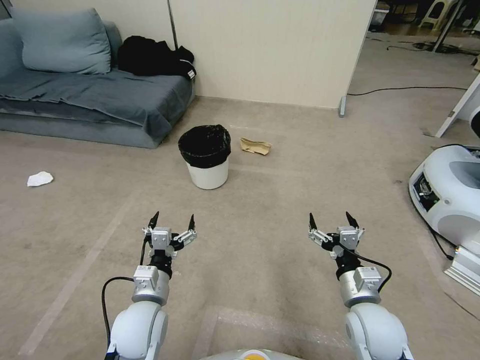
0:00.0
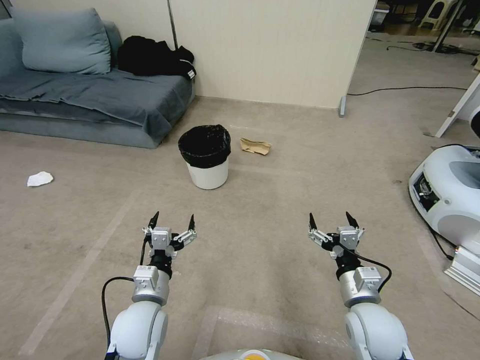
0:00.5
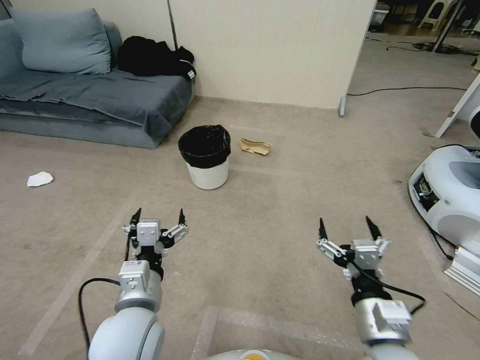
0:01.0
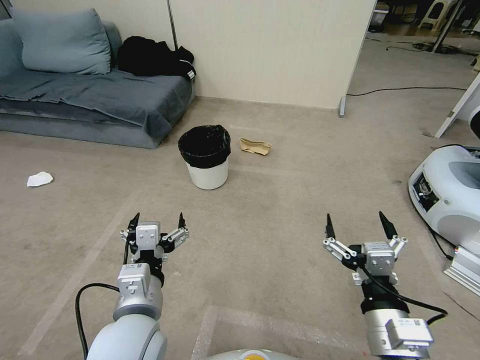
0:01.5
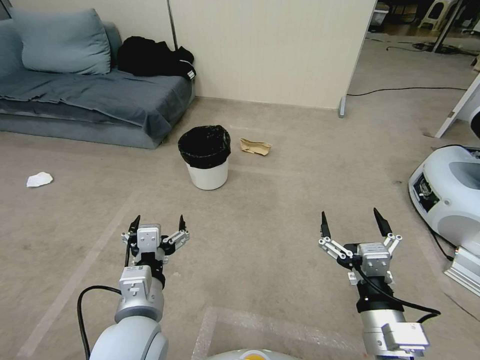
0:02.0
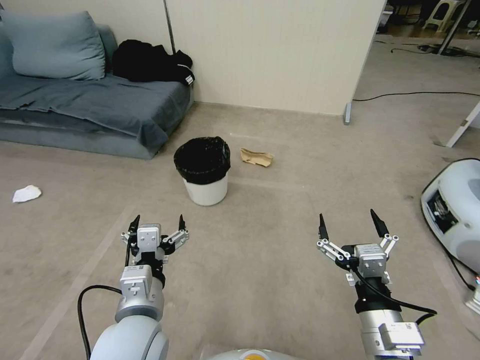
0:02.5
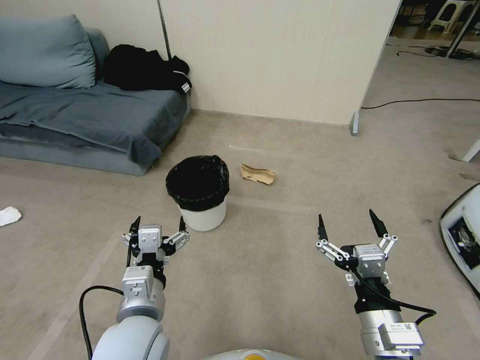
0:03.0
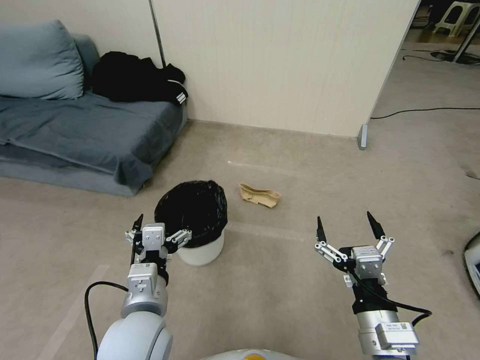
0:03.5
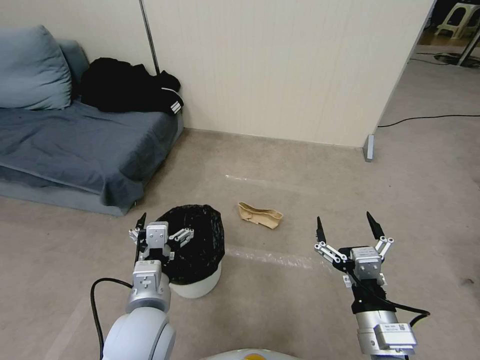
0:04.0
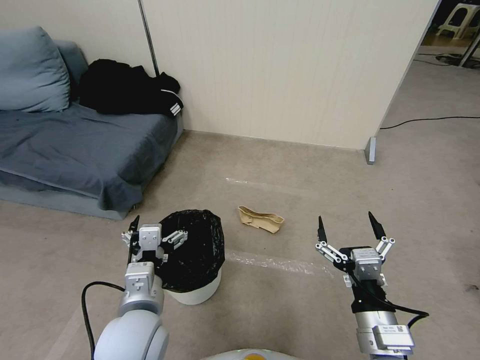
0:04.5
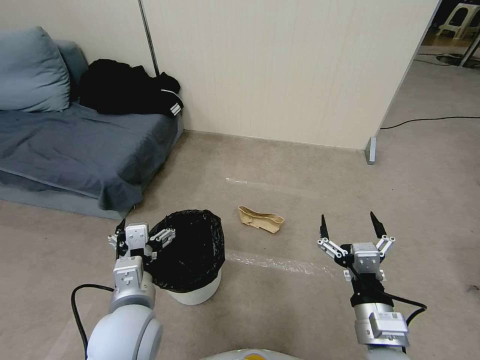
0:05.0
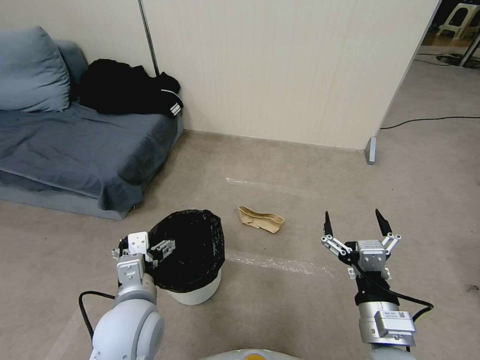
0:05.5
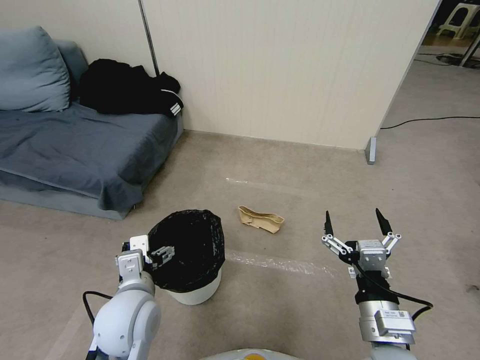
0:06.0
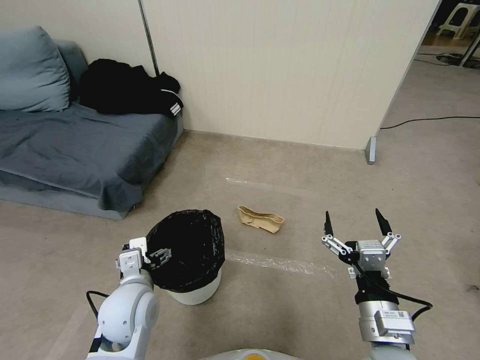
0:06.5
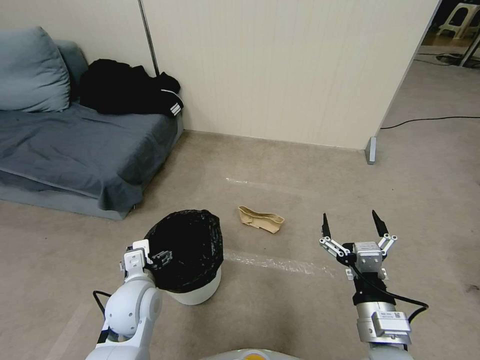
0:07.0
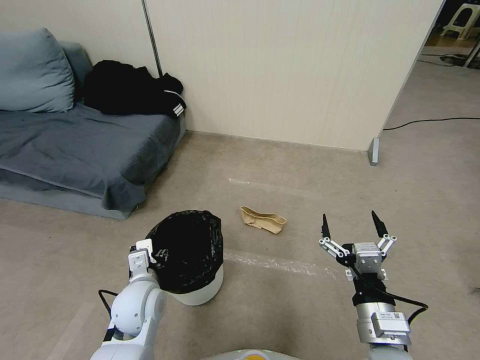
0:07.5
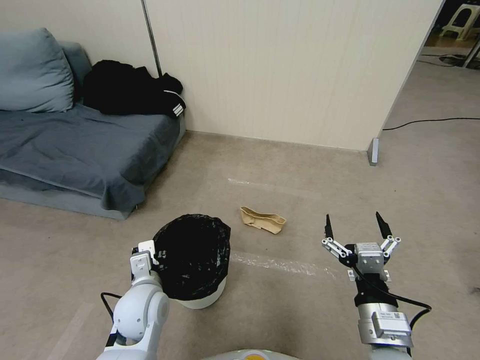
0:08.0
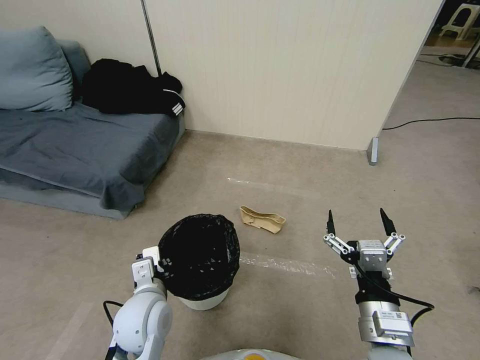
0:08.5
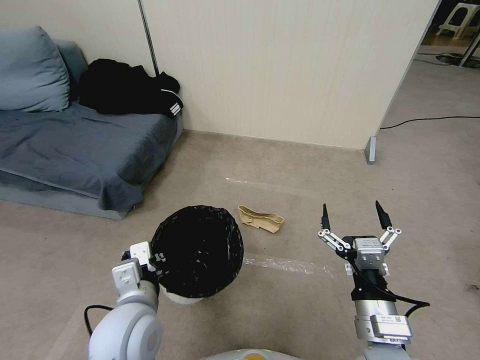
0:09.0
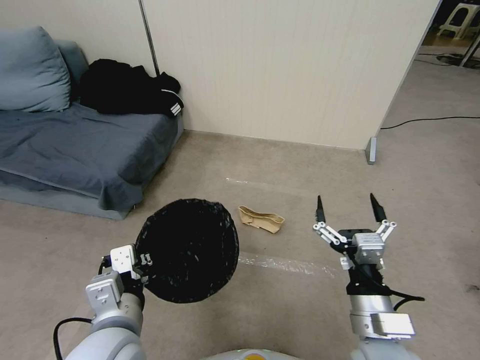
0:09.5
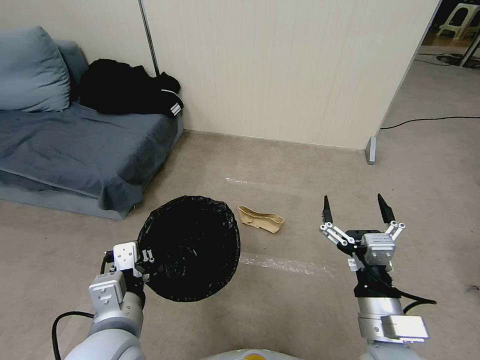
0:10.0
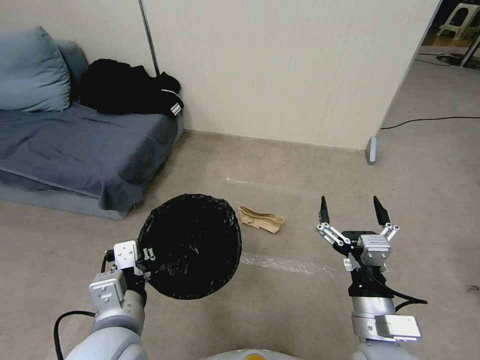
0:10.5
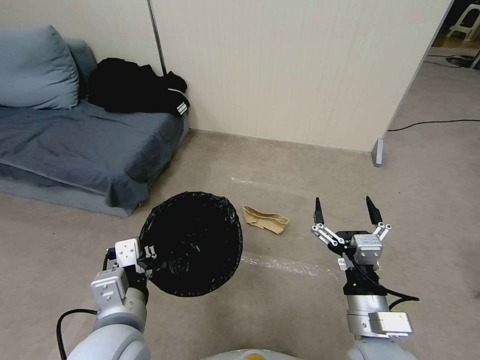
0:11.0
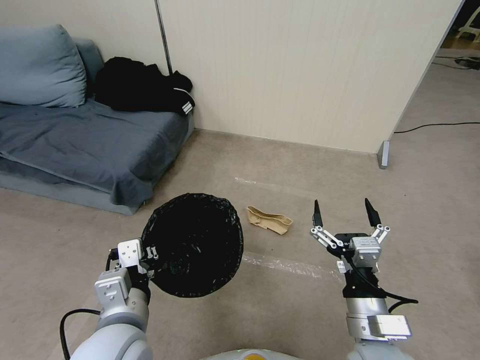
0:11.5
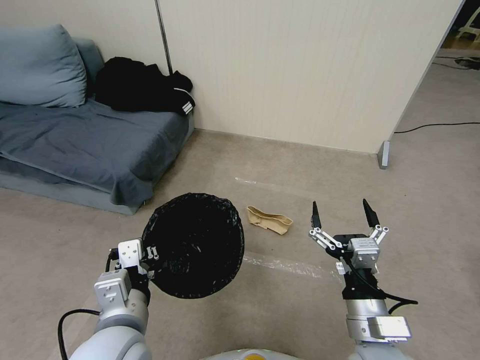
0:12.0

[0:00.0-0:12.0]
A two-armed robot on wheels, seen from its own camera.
Task of the whole recording: Pick up the trash bin, then pick up the garbage from the floor and place it into the trash bin.
0:04.0 to 0:06.0: The left gripper ends up about 5 cm from where it was.
0:06.0 to 0:08.0: The left gripper heads downward, covering approximately 5 cm, and closes up.
0:08.0 to 0:10.0: The left gripper moves upward and backward, approximately 15 cm.
0:10.0 to 0:12.0: There are only small adjustments of the grippers.

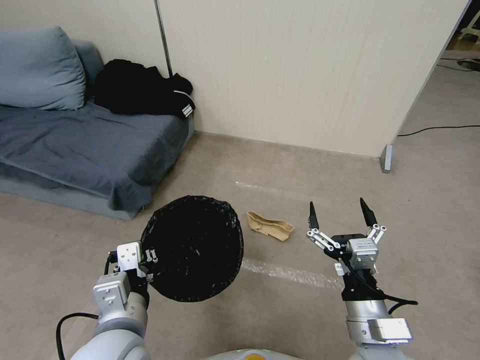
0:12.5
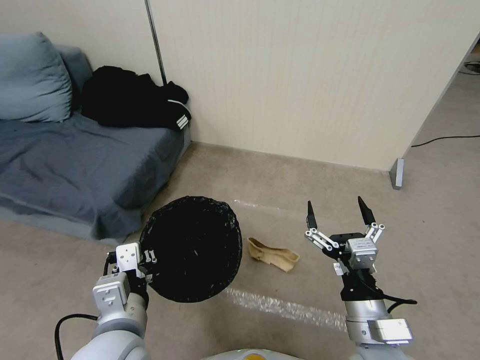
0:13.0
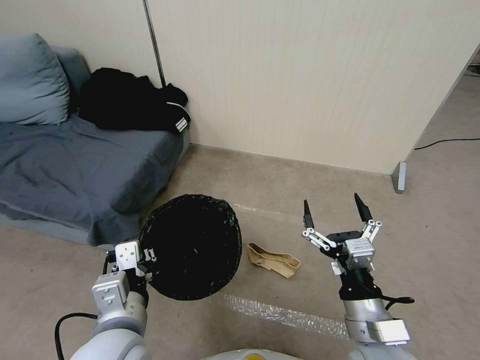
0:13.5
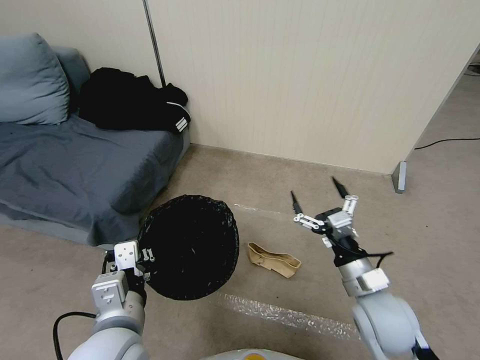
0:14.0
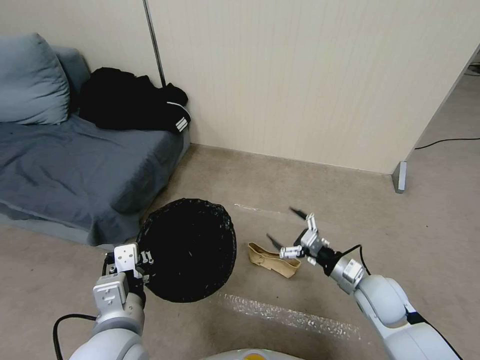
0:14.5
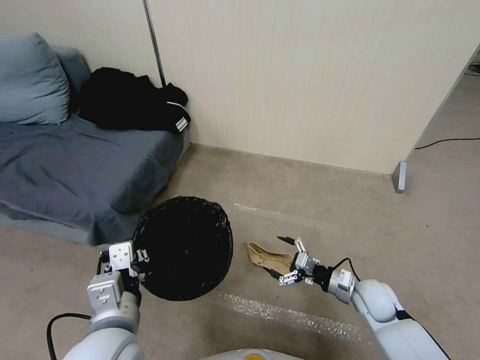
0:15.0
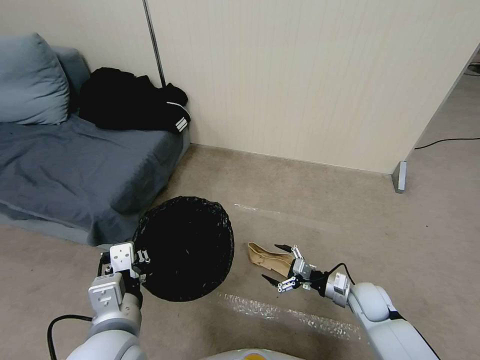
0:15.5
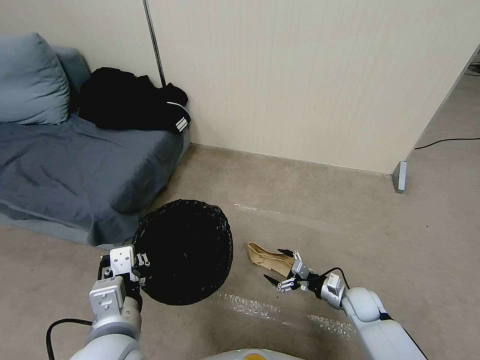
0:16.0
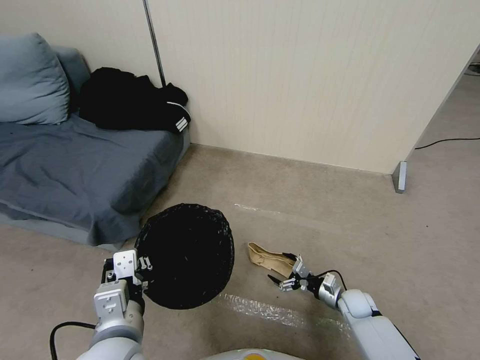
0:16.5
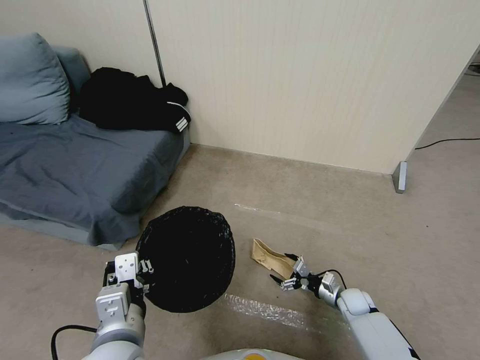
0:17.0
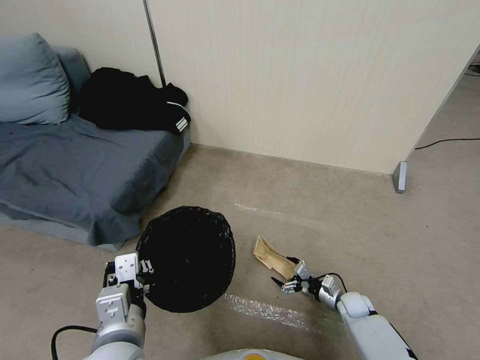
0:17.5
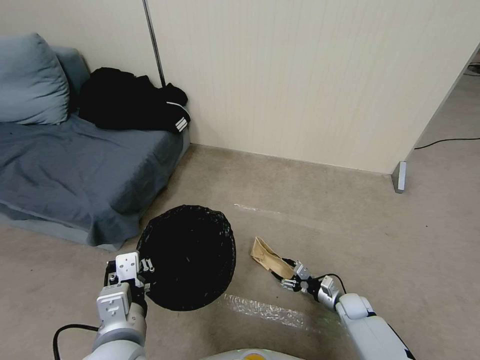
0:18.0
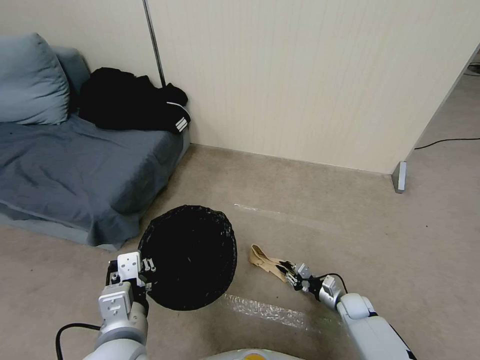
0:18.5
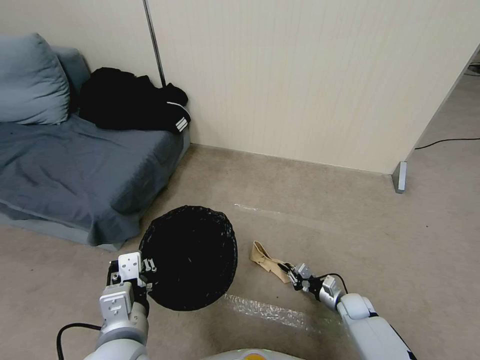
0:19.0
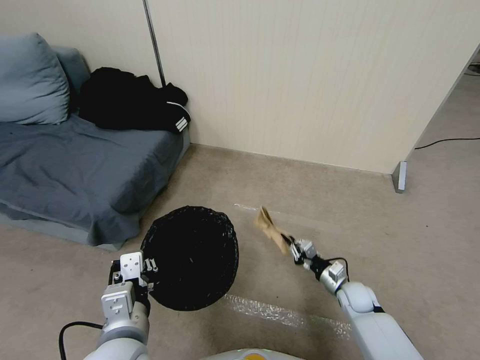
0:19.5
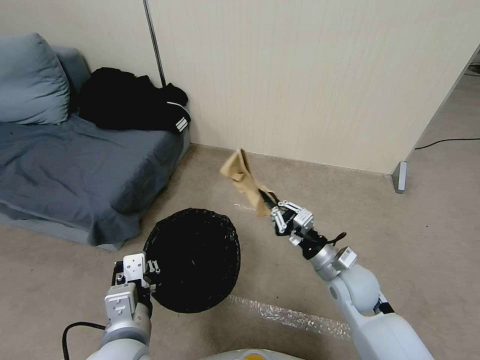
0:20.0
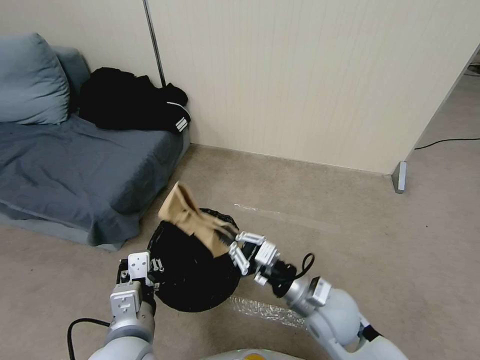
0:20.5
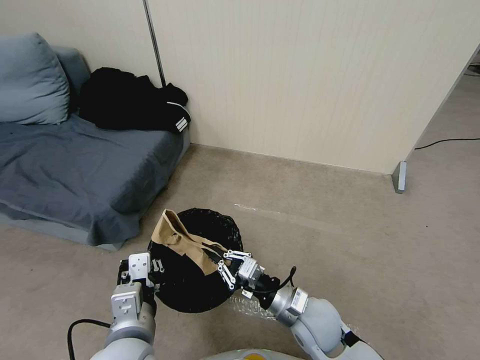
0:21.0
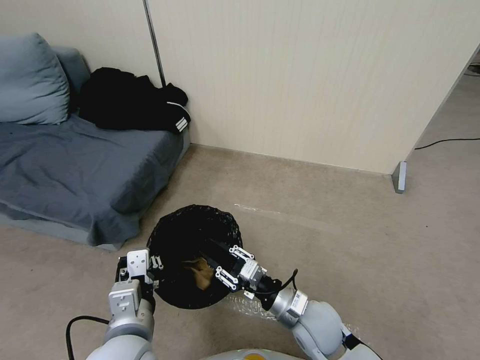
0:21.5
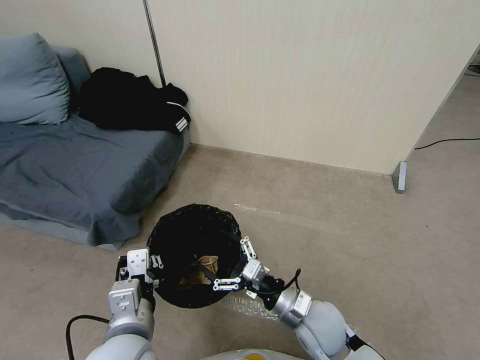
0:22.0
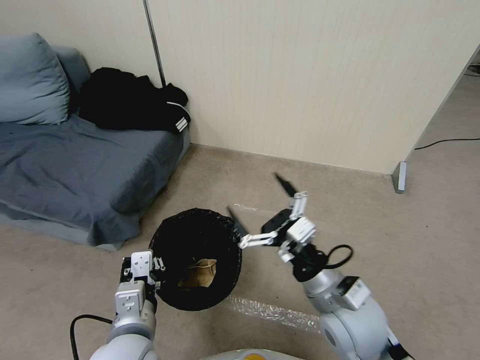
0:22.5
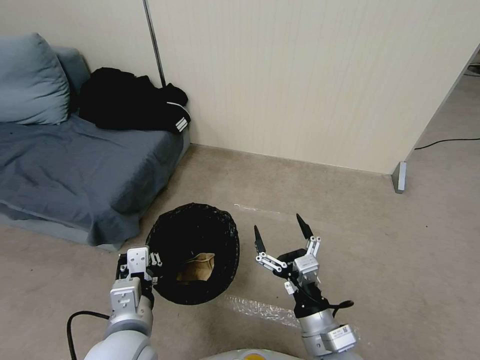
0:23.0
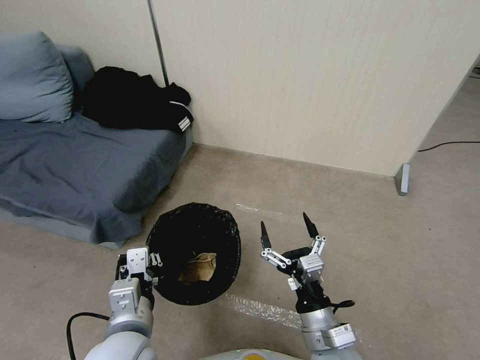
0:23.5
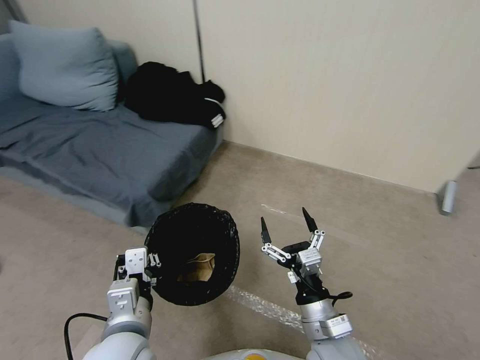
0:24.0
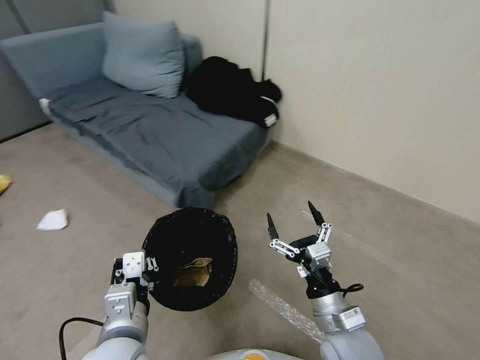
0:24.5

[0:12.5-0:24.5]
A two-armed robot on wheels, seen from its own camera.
Task of the whole recording: Pick up the trash bin, then pick up the garbage from the floor and place it into the trash bin.
0:12.5 to 0:14.5: The right gripper travels forward, downward and to the right by some 20 cm.
0:14.5 to 0:16.5: The right gripper goes approximately 20 cm downward.
0:16.5 to 0:18.5: The right gripper closes up.
0:18.5 to 0:20.5: The right gripper moves upward and to the left, about 30 cm.
0:20.5 to 0:22.5: The right gripper moves upward, about 5 cm, and opens up.
0:22.5 to 0:24.5: The right gripper goes roughly 10 cm downward.

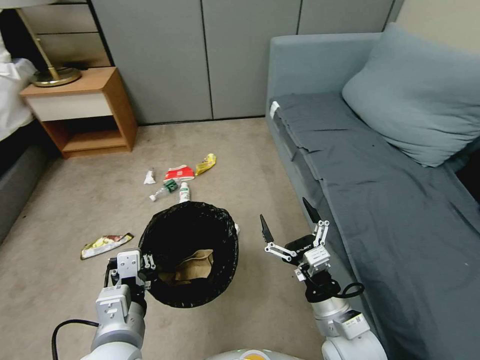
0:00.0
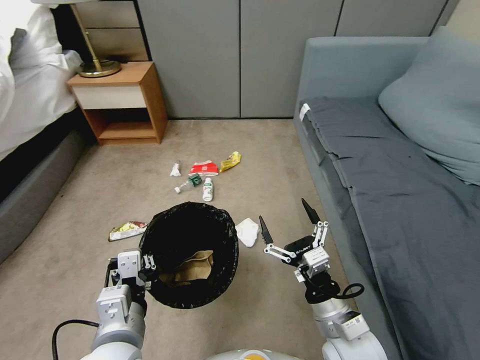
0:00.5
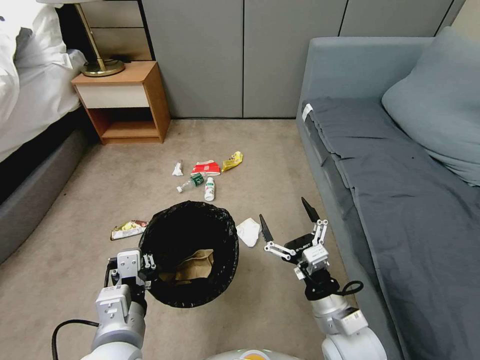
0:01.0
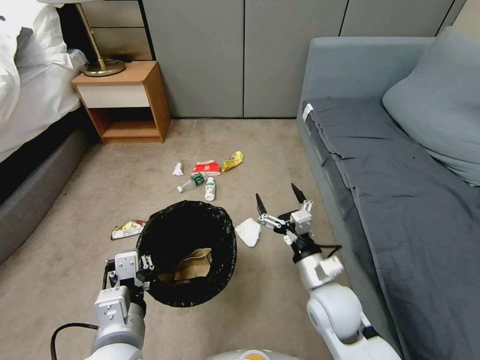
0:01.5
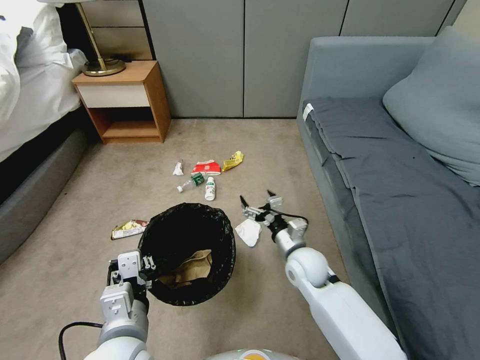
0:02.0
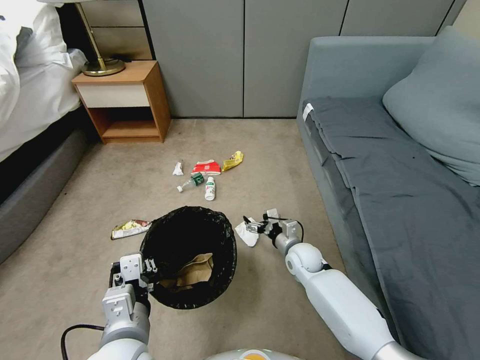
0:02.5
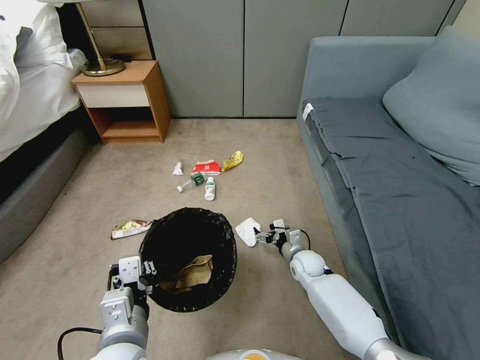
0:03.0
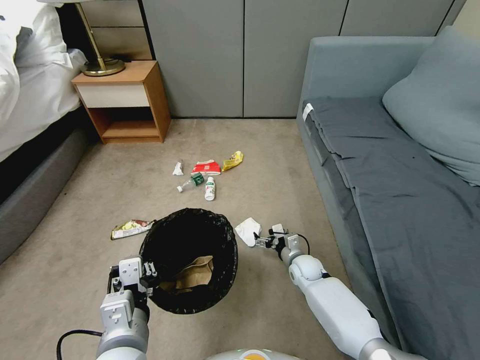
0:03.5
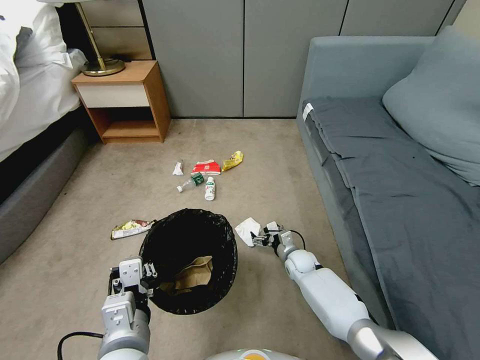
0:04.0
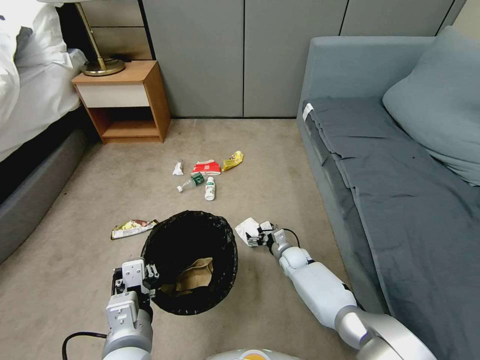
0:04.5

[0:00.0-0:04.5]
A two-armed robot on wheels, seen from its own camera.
Task of the whole recording: Pick up the trash bin, then pick up the garbage from the floor and place it into the trash bin.
0:00.0 to 0:02.0: The right gripper travels forward by approximately 15 cm.
0:02.0 to 0:04.5: The right gripper heads downward and forward, covering about 20 cm.
